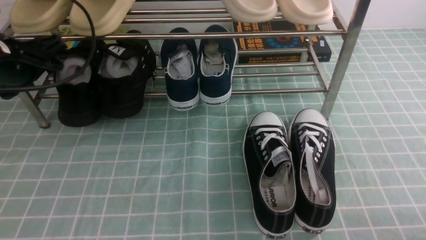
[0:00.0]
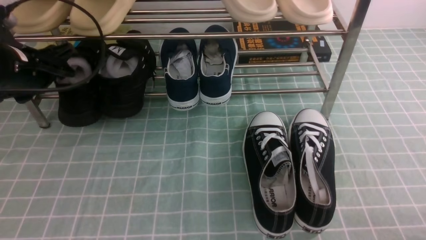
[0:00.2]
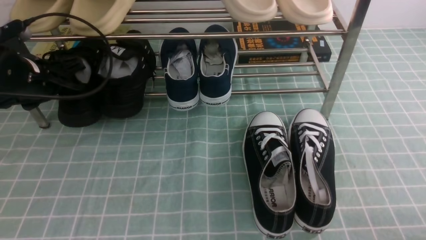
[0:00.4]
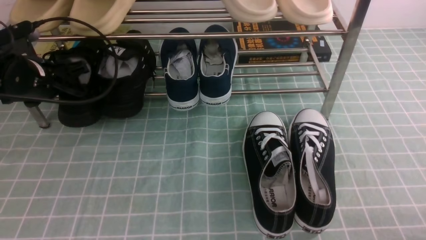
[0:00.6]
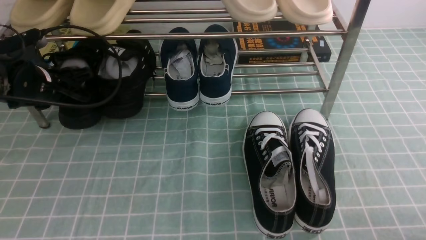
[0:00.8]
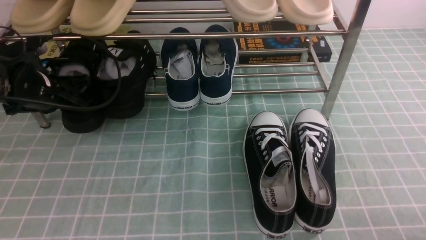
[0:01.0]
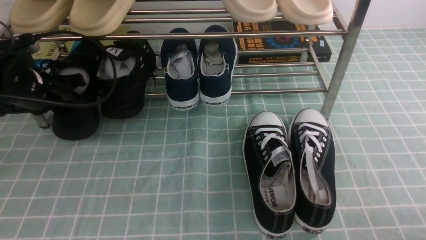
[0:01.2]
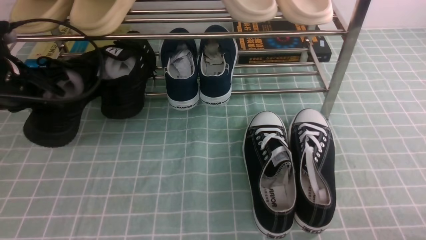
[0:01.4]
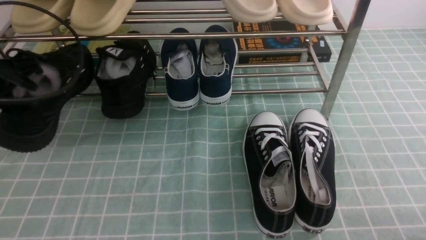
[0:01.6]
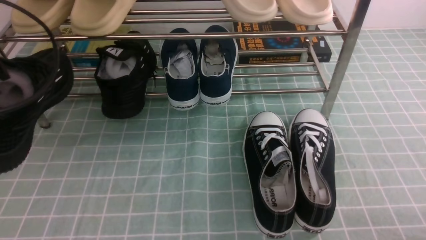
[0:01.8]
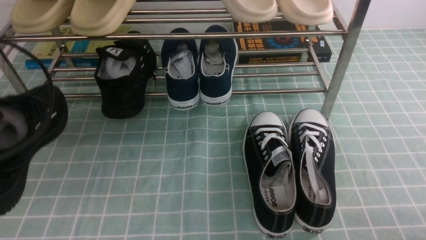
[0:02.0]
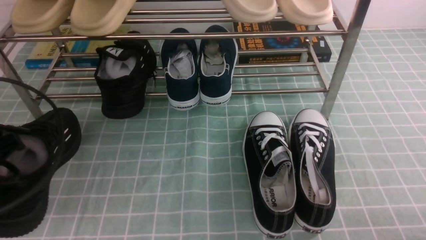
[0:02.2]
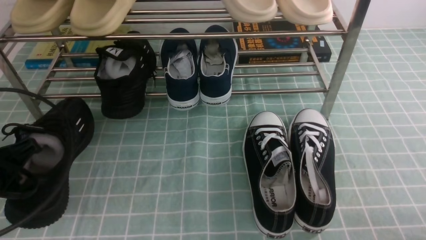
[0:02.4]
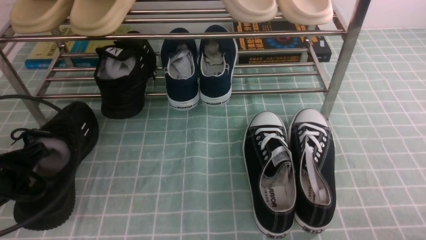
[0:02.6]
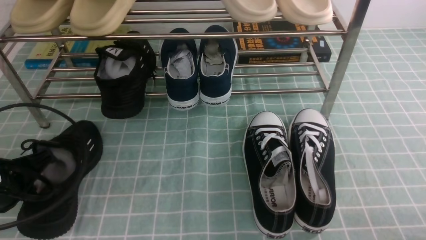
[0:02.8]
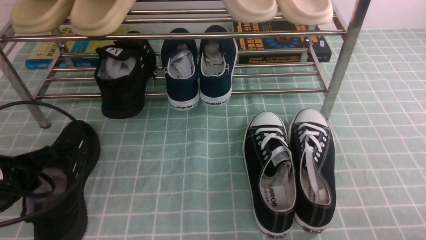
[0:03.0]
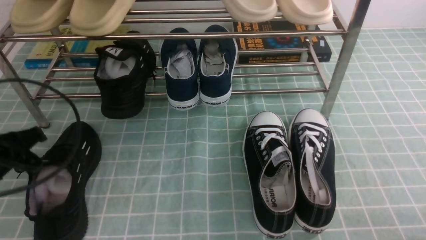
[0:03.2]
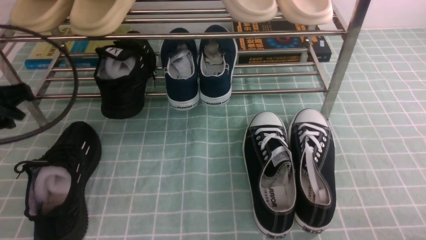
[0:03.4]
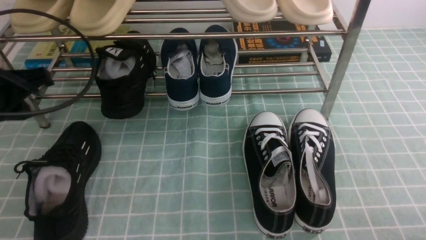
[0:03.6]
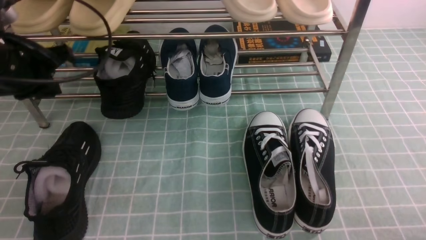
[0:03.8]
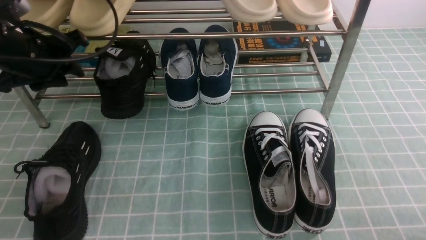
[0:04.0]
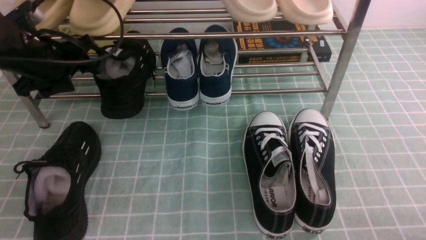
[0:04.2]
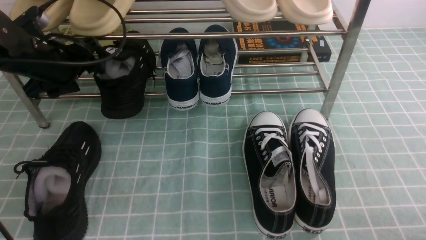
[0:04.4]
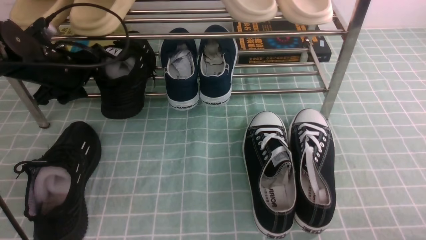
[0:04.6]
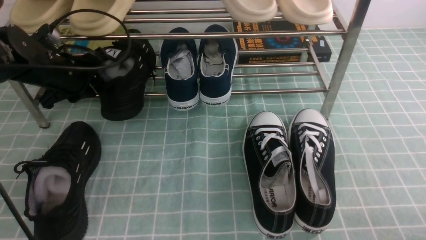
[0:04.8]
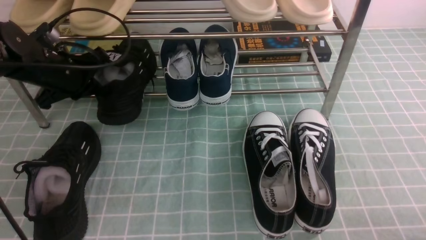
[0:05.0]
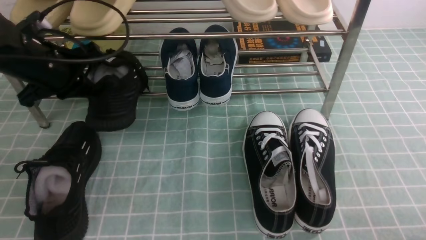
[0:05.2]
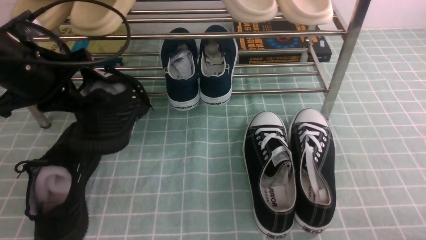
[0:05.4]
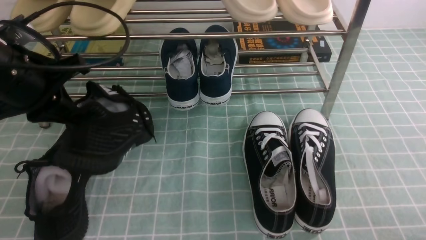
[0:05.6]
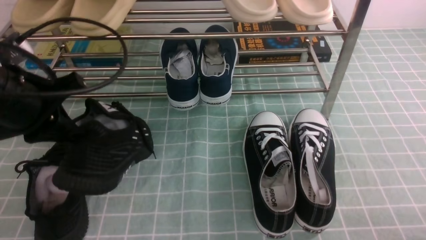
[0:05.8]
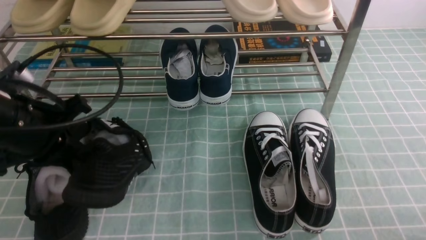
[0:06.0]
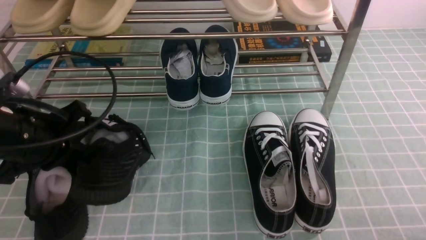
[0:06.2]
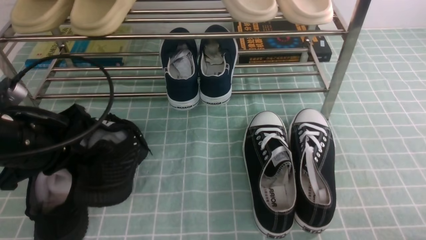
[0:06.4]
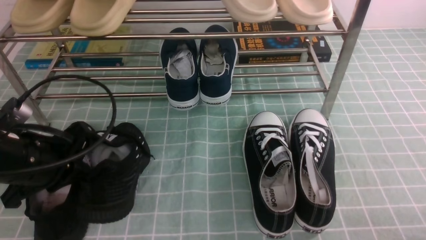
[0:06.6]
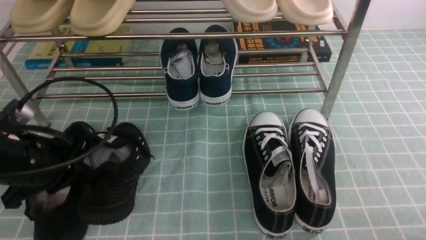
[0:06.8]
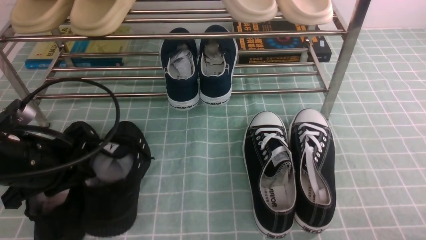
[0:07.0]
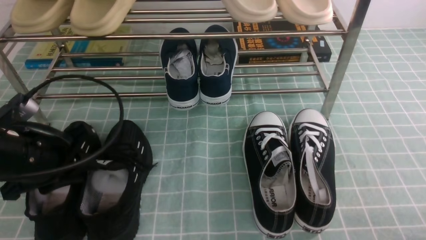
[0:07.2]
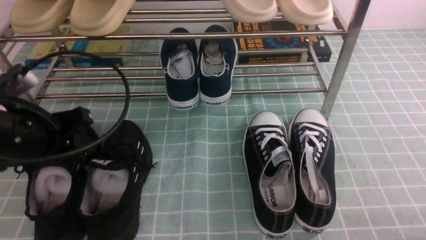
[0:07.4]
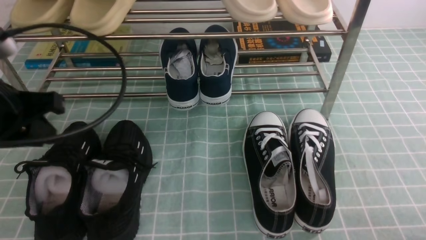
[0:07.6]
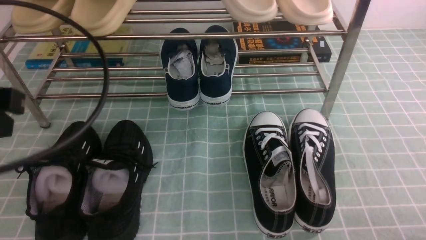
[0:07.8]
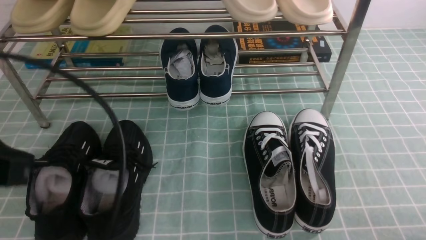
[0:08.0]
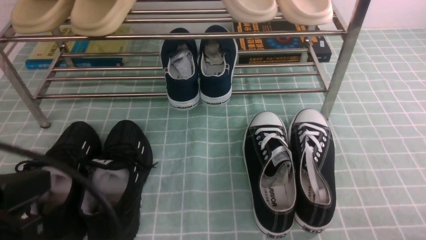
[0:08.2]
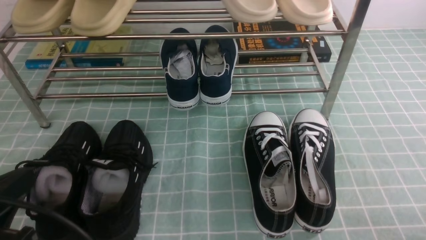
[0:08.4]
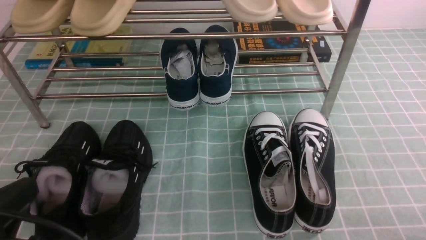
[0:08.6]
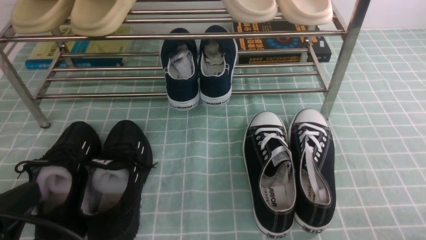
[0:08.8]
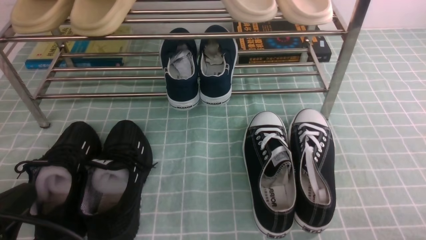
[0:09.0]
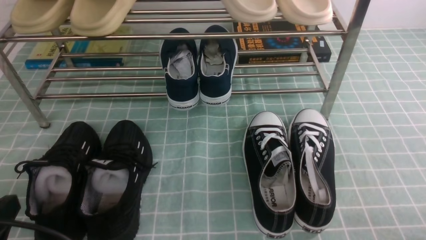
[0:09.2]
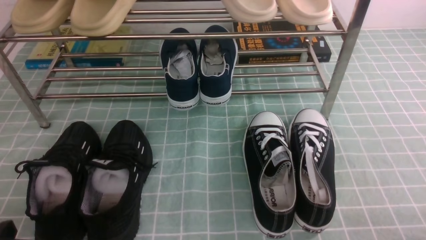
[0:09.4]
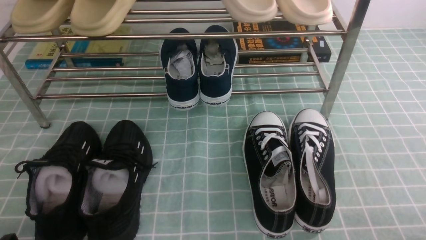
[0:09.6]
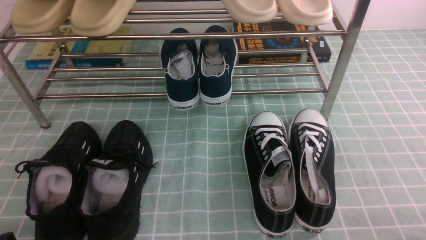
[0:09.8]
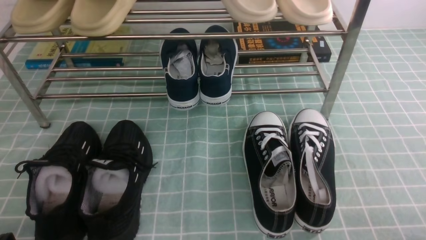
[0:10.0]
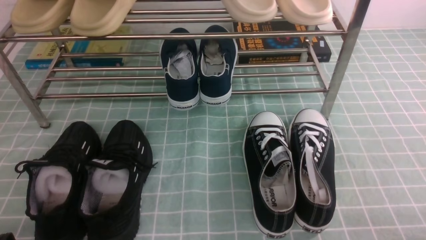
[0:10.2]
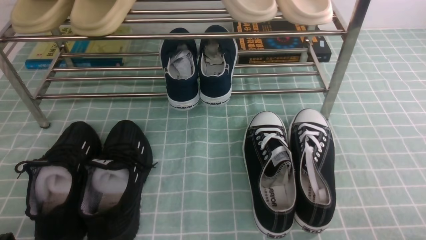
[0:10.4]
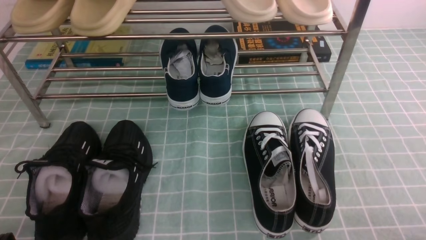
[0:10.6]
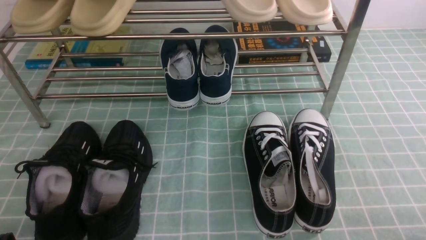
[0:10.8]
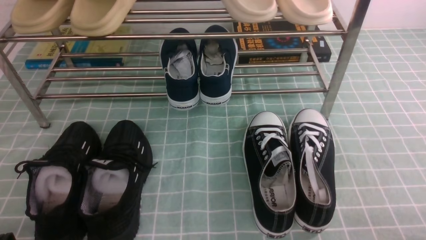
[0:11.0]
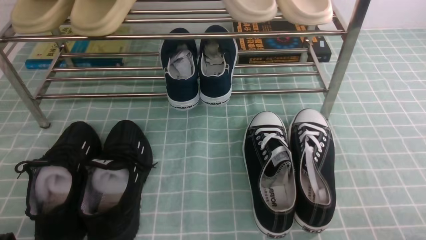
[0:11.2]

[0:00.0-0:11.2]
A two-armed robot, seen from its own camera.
Step, 0:01.0 to 0:03.2: Use your left arm to remove the clamped shoe from the shoe rack and put it down.
Step, 0:03.4 to 0:04.8: use the left arm to clamp a shoe on the left side of the shoe rack.
Step, 0:05.0 to 0:07.2: Use your left arm to remove the clamped shoe from the shoe rack and put it down.
0:00.0 to 0:01.6: The left gripper shifts some 5 cm backward, and closes.
0:01.6 to 0:03.2: The left gripper goes roughly 5 cm downward, and opens up.
0:03.2 to 0:04.8: The left gripper moves forward, some 15 cm, and opens and closes again.
0:04.8 to 0:06.4: The left gripper is displaced backward by roughly 15 cm, and closes.
0:06.4 to 0:08.0: The left gripper goes roughly 15 cm backward and upward, and opens, then closes again.
0:08.0 to 0:09.6: The left gripper shifts roughly 20 cm downward.
0:09.6 to 0:11.2: Neither gripper changes place.
